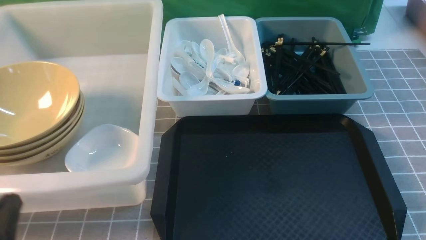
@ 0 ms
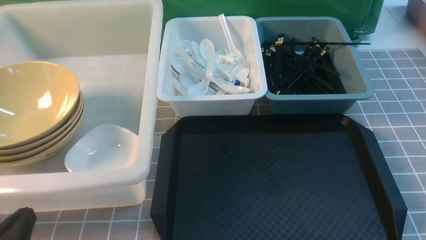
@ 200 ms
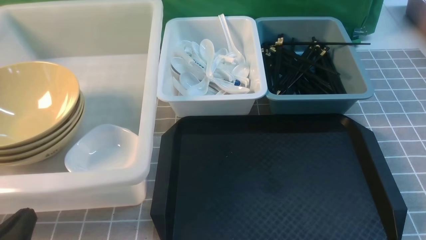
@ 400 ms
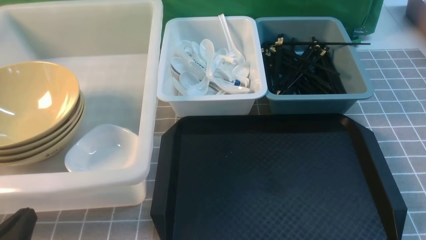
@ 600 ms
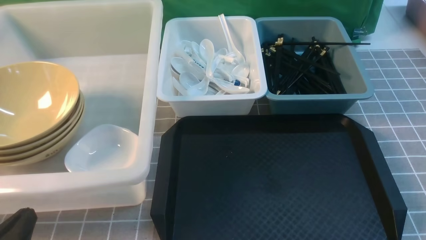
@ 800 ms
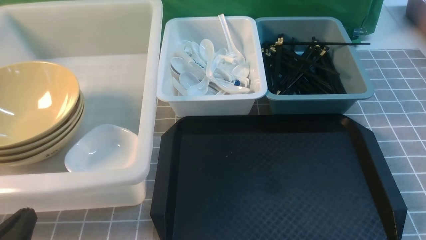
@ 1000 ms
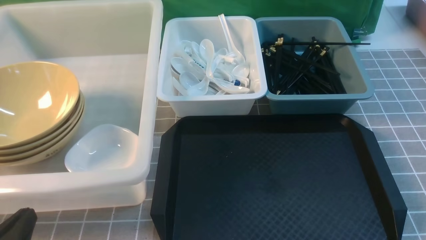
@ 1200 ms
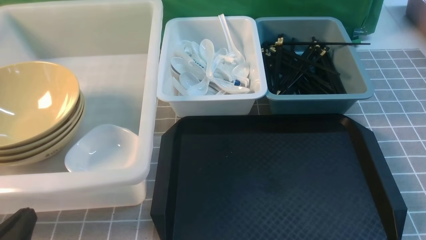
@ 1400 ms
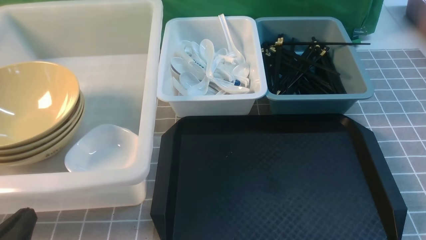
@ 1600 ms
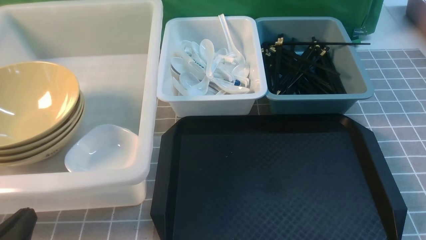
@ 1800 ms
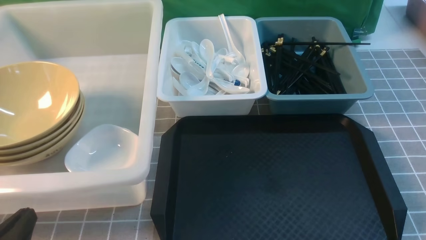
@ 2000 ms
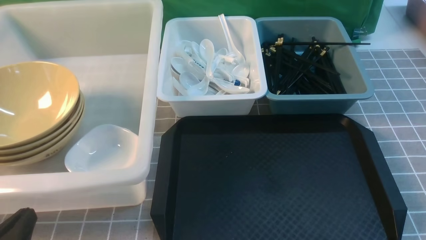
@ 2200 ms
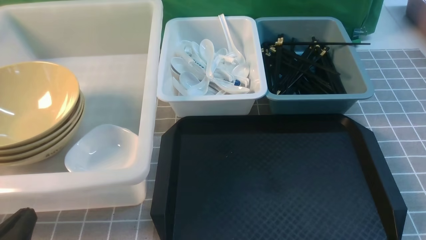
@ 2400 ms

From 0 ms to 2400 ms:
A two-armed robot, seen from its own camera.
Task of the whole recording: on grey table put chopsticks spoon bowls plates into blue grey white boxes.
From 0 ms to 1200 ms: The grippers make only small movements.
From 1200 ms to 2400 ms: The two grippers keep their place.
